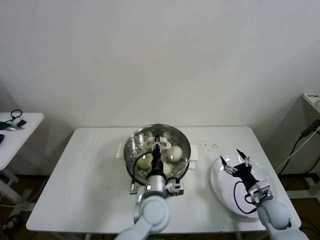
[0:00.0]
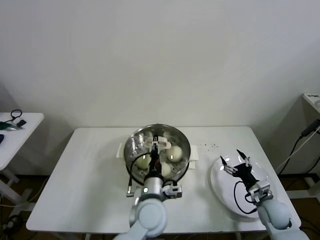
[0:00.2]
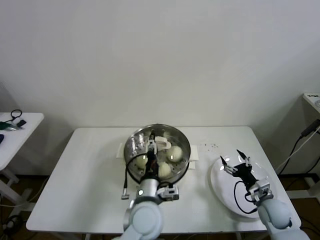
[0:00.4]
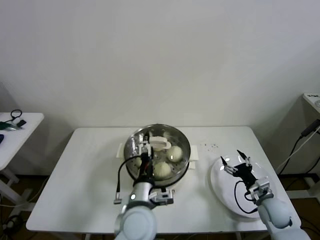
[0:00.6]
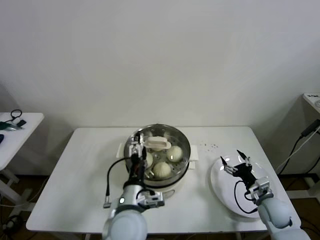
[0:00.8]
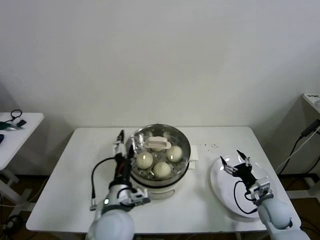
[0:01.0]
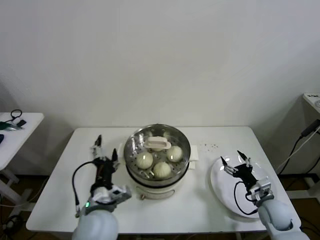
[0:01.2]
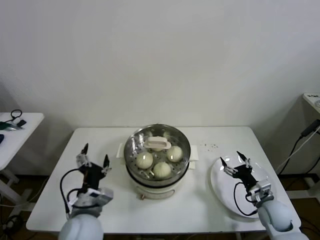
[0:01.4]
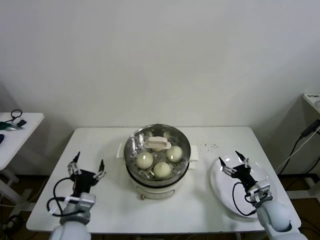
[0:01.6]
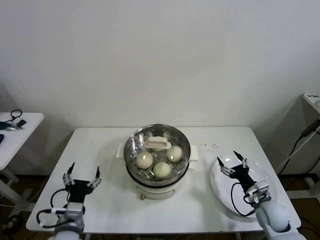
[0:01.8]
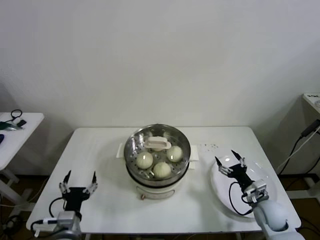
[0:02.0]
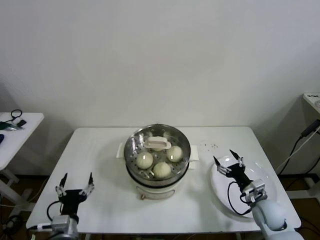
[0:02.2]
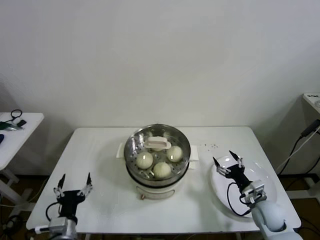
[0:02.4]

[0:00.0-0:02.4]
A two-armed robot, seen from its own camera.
0:00.0 to 0:01.2: The left gripper heads to the left, backward and upward, covering some 15 cm, and opens up.
0:01.2 to 0:02.4: The left gripper heads to the left, downward and backward, covering roughly 20 cm.

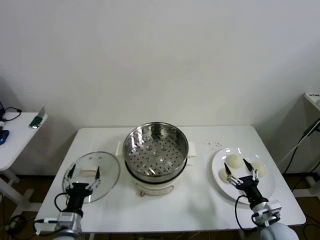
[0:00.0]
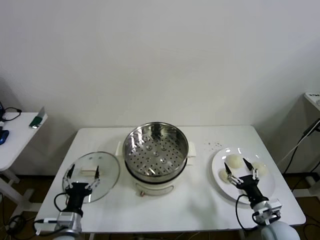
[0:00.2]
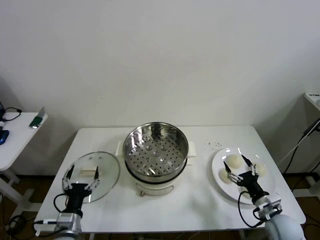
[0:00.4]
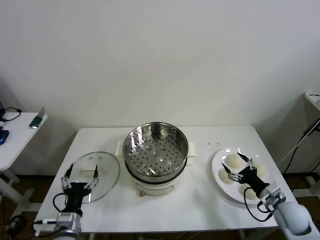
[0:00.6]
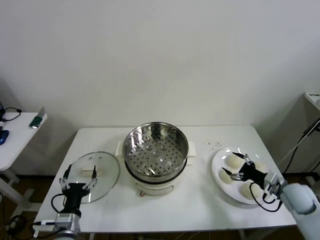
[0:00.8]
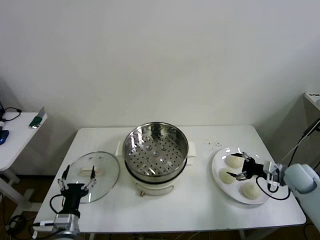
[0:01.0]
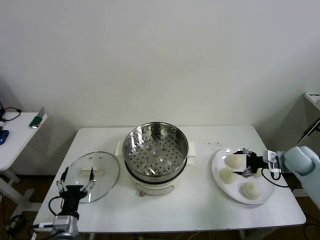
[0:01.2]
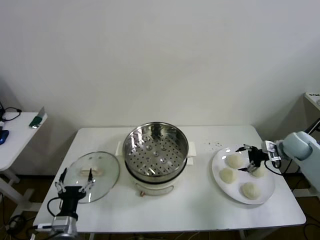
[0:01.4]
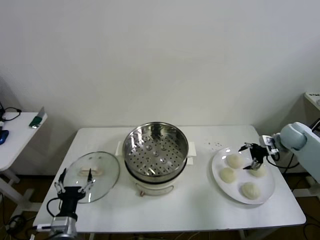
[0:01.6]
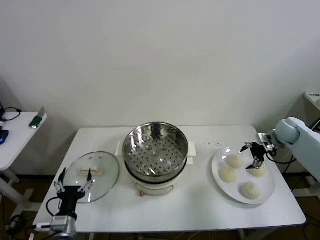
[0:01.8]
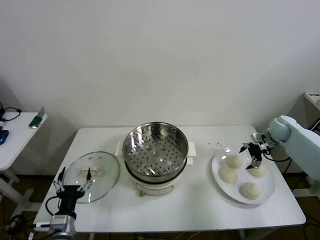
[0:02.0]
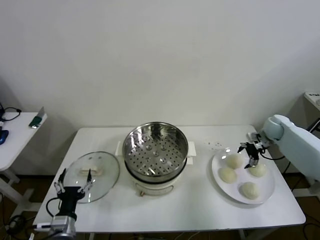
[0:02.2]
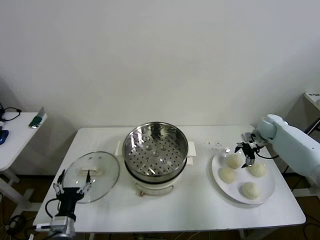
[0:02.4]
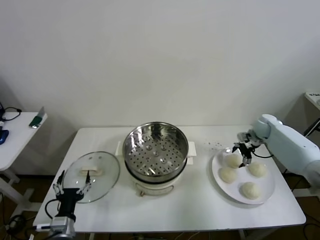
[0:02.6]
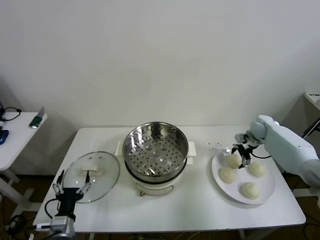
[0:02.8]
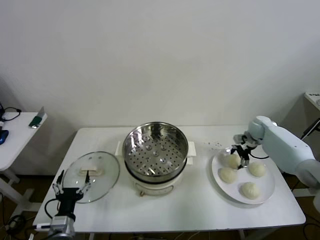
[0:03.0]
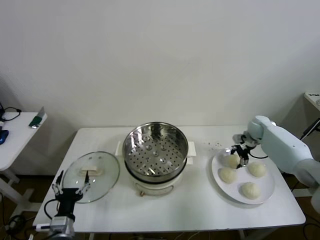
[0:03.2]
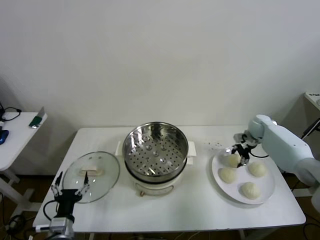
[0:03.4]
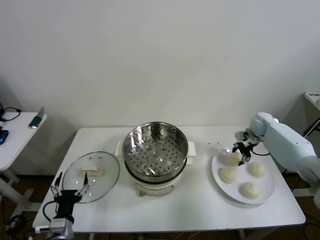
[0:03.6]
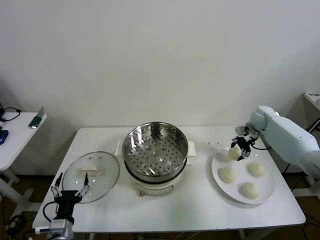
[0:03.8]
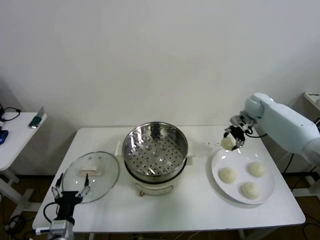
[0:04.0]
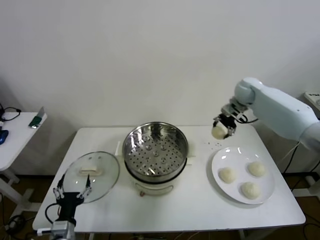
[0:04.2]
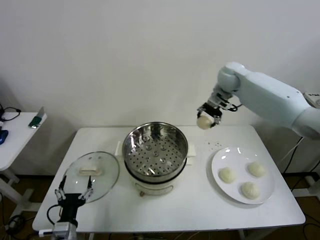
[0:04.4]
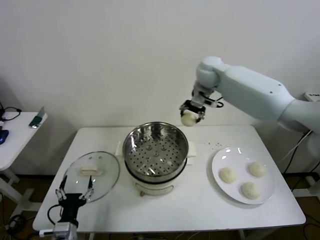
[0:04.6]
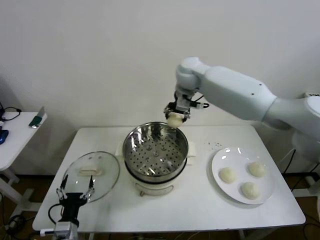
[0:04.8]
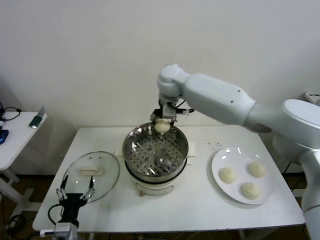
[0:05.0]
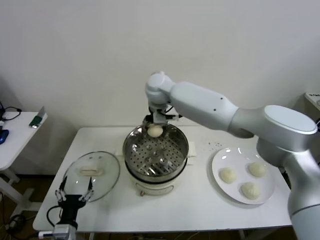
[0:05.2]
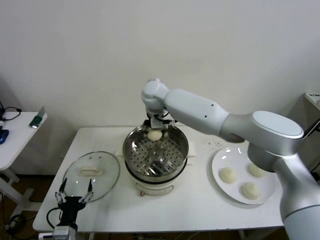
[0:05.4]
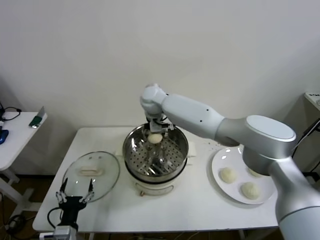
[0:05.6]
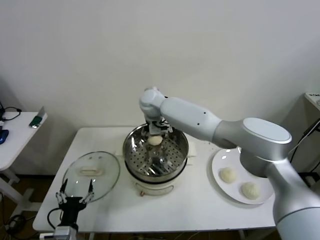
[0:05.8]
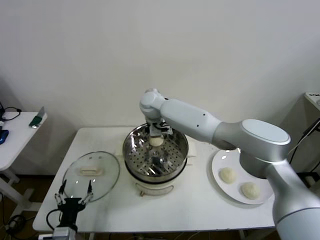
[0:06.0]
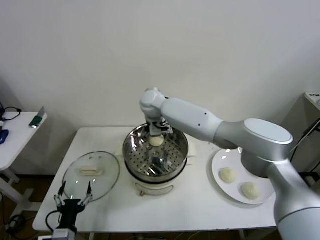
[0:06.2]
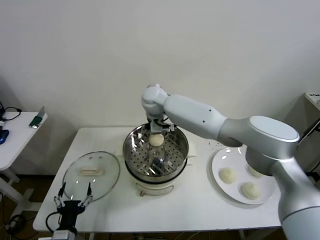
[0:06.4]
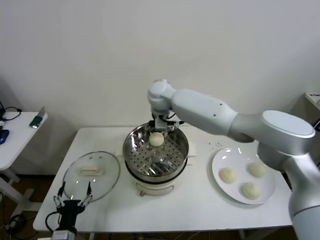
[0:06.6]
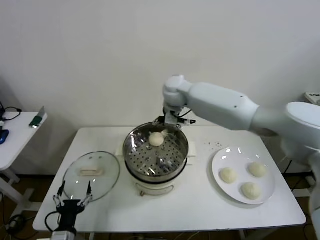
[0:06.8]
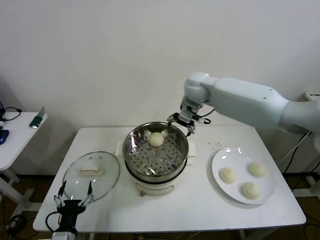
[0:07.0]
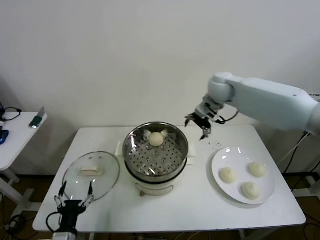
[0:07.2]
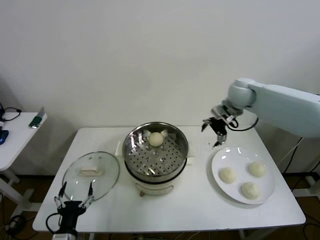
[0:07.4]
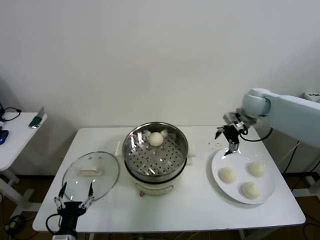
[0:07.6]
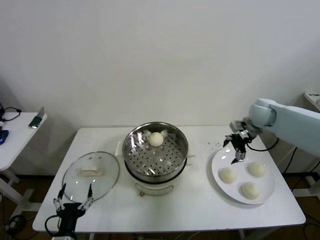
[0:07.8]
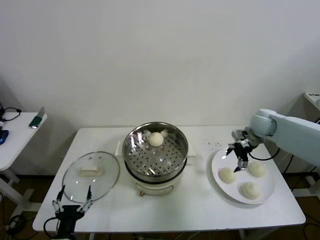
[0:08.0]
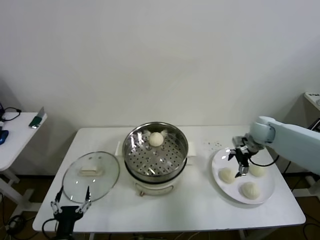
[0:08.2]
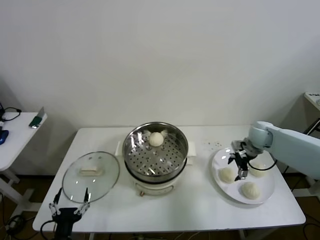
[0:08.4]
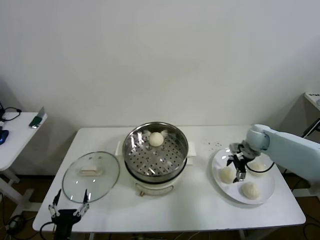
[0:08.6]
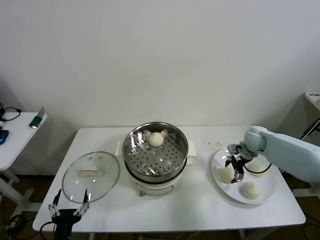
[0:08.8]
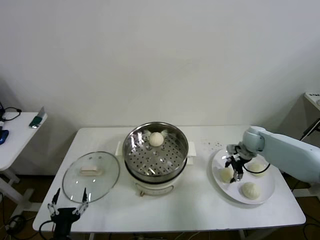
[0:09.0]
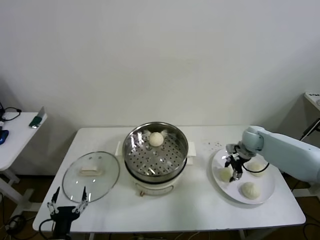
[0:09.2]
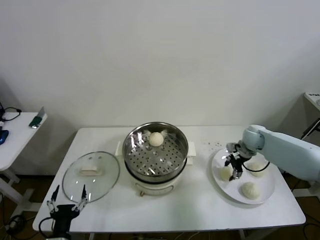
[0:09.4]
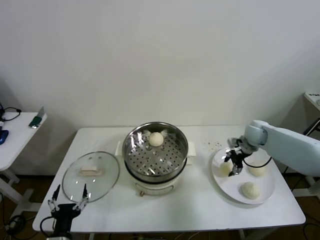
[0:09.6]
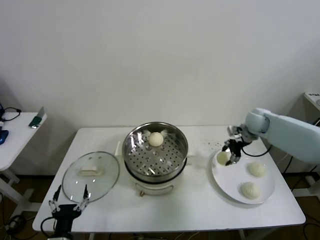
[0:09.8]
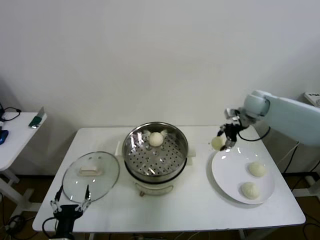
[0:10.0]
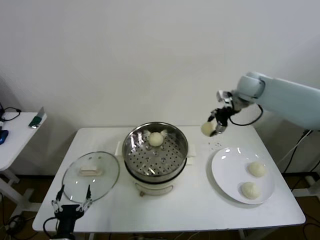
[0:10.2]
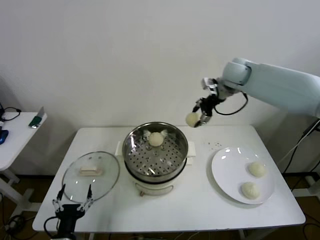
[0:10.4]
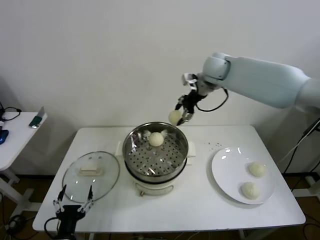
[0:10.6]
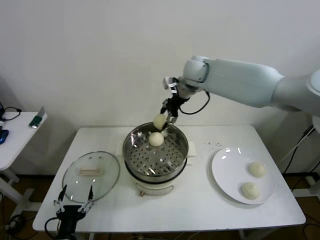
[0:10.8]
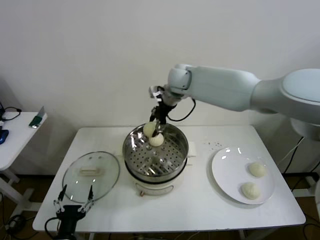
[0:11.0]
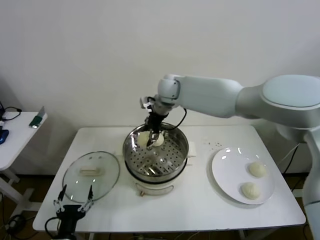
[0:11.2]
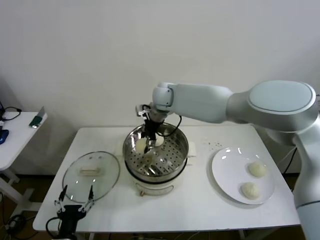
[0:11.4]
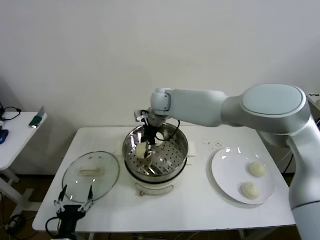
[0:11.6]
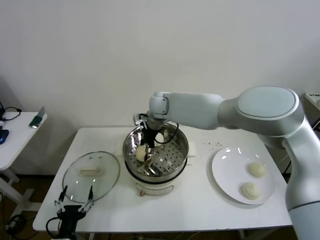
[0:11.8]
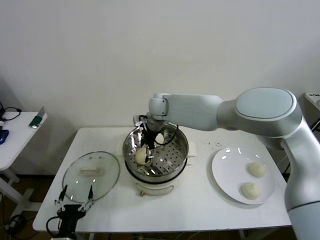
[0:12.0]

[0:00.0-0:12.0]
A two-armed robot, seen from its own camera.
Step, 0:00.0 to 0:03.2: Grasp the baozi in the plate with right gripper.
Step, 0:03.4 to 0:06.4: Place the baozi on the steamer with right gripper.
Step, 0:06.6 to 0:09.2: Grasp the baozi in the plate with right gripper.
0:01.6 to 0:03.0: The right gripper goes roughly 10 cm forward, to the left and downward, and closes up.
0:03.0 to 0:04.4: The right gripper is displaced upward and to the left by about 30 cm, and closes its fingers.
0:04.4 to 0:06.0: The right gripper is displaced to the left and downward by approximately 25 cm, and opens up.
0:06.0 to 0:07.6: The right gripper heads to the right, covering about 35 cm.
0:07.6 to 0:09.0: The right gripper goes some 15 cm downward, and closes up.
0:09.0 to 0:10.4: The right gripper travels upward and to the left by about 30 cm.
0:10.4 to 0:12.0: The right gripper goes roughly 25 cm to the left and downward, and opens up.

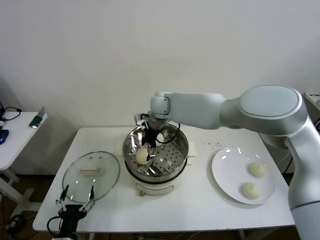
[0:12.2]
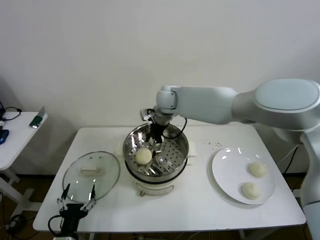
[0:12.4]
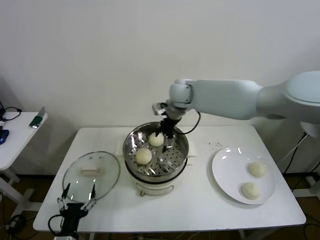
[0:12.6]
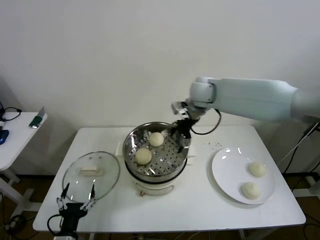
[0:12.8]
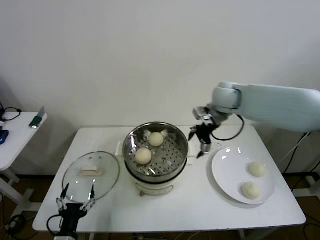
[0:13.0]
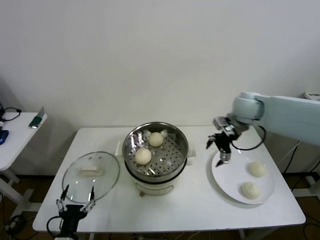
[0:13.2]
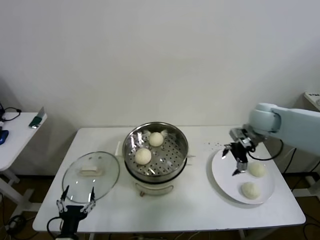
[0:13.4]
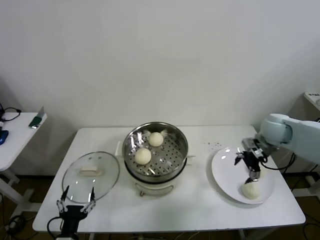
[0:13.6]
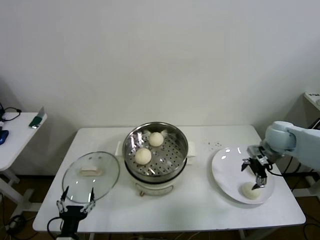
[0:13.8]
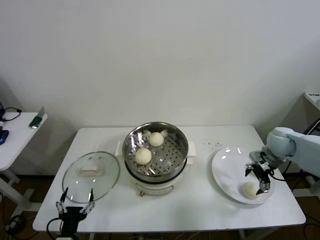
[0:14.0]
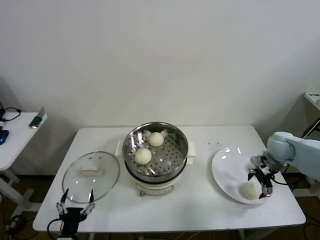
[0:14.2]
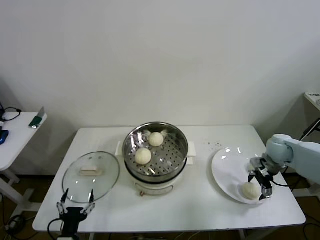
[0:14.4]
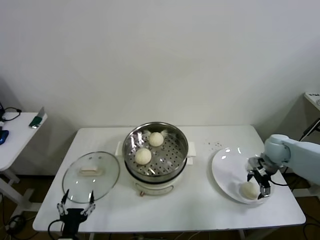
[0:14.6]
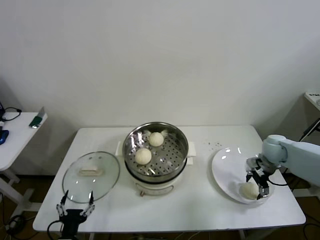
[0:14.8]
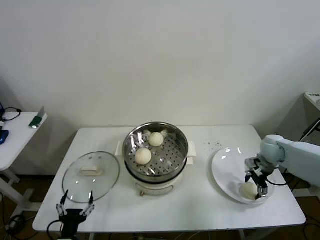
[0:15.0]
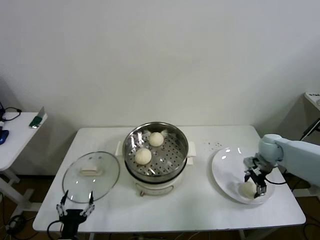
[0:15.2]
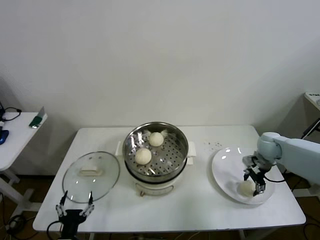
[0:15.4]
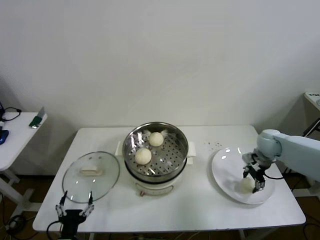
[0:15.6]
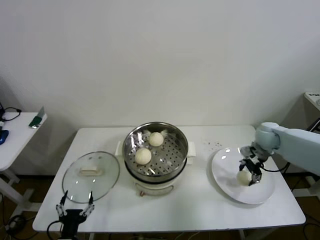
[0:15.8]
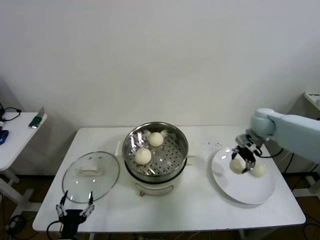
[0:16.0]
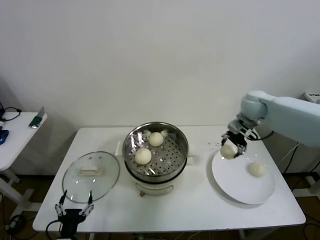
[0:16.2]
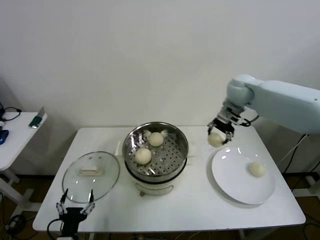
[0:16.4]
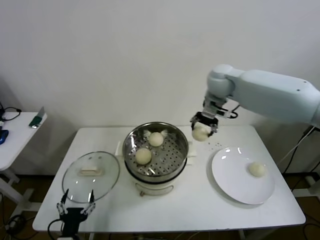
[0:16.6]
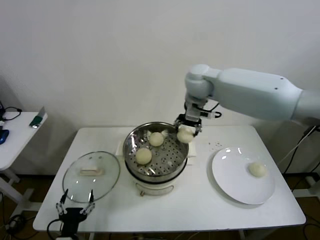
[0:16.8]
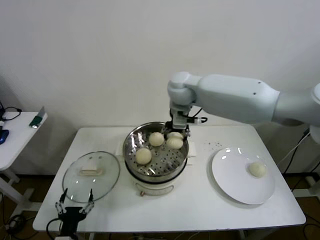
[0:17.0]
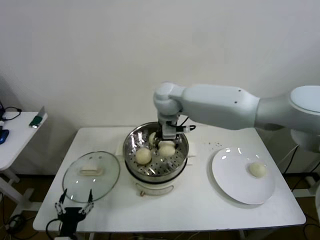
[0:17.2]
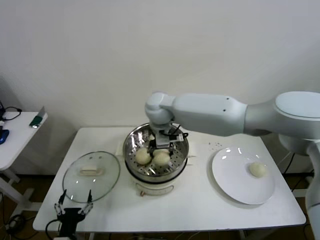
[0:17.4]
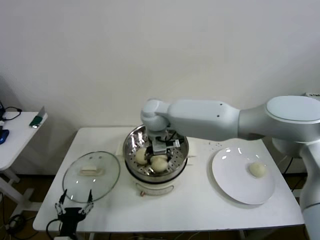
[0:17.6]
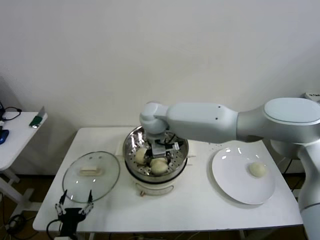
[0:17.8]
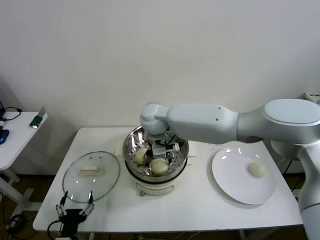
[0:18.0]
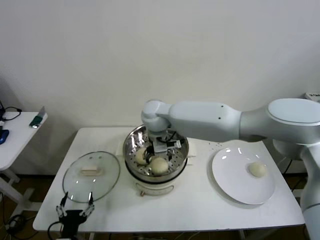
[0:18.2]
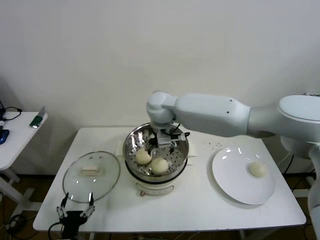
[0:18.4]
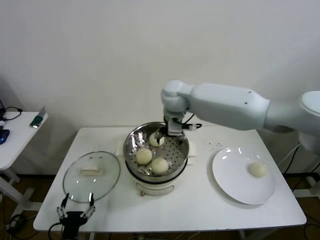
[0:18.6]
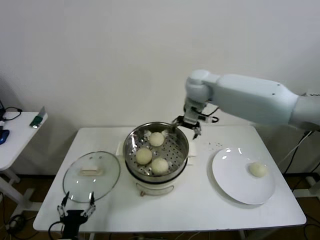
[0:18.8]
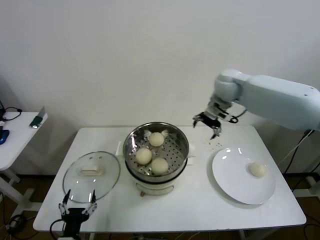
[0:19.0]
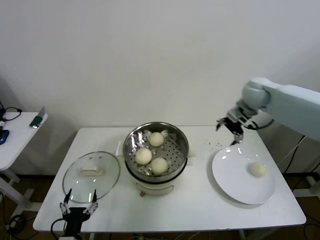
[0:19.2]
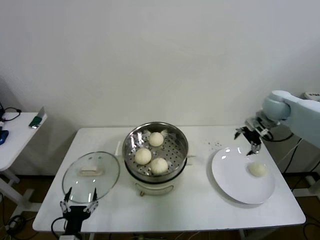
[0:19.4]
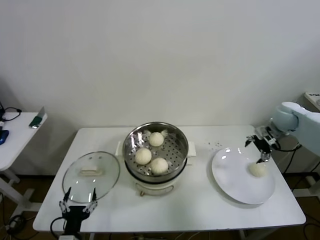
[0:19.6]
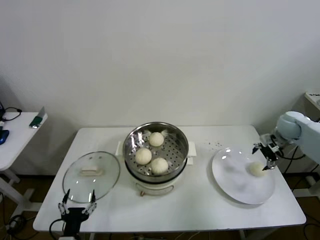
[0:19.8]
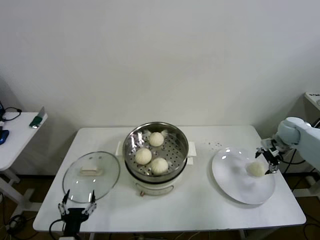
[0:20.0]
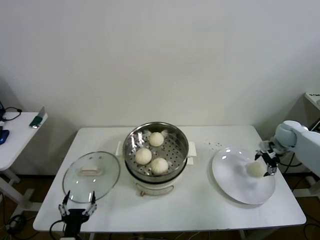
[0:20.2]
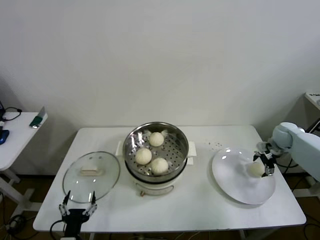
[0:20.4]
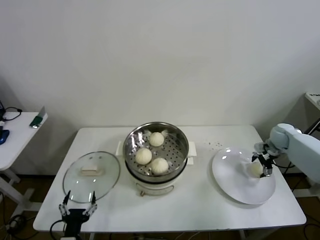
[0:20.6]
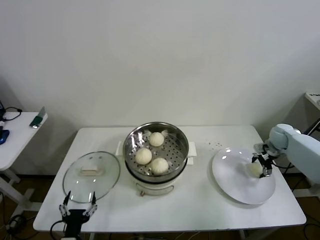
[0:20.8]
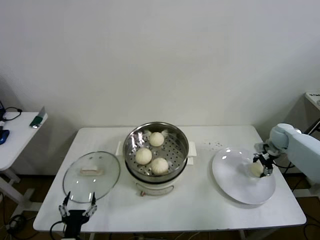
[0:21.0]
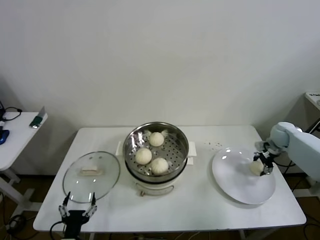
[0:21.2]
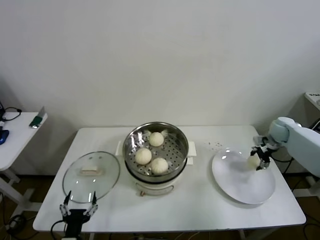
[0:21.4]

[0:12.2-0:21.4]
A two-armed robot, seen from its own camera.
Step, 0:12.6 to 0:15.2: Grasp the baozi in the plate with right gripper.
Step, 0:15.4 to 0:18.2: Place the baozi on the steamer with right gripper.
Step, 0:18.4 to 0:20.8: Grasp the baozi in the plate with right gripper.
0:12.2 to 0:13.8: The right gripper heads to the right, covering about 40 cm.
0:13.8 to 0:15.2: The right gripper travels downward by roughly 5 cm, and closes.
0:15.2 to 0:16.8: The right gripper travels to the left and upward by roughly 40 cm.
0:16.8 to 0:18.4: The right gripper heads to the left and downward, covering roughly 10 cm, and opens up.
0:18.4 to 0:19.8: The right gripper moves to the right, about 50 cm.
0:19.8 to 0:21.4: The right gripper shifts by about 5 cm, and closes its fingers.
